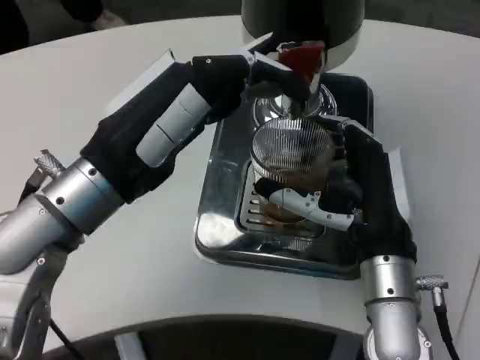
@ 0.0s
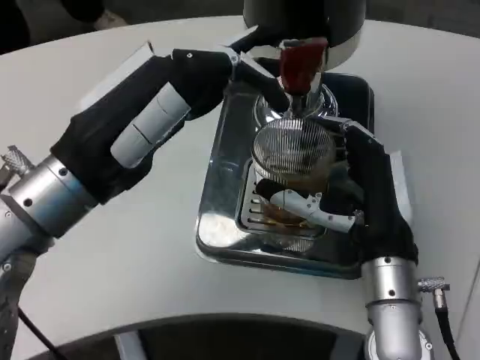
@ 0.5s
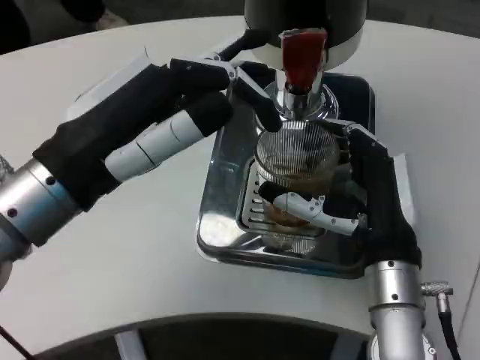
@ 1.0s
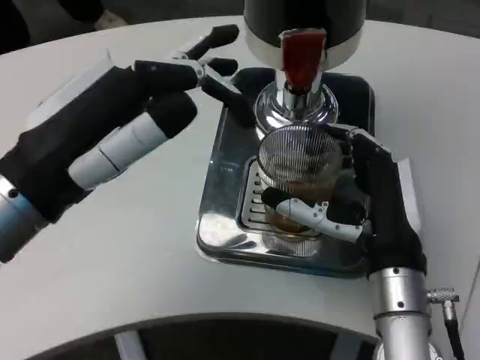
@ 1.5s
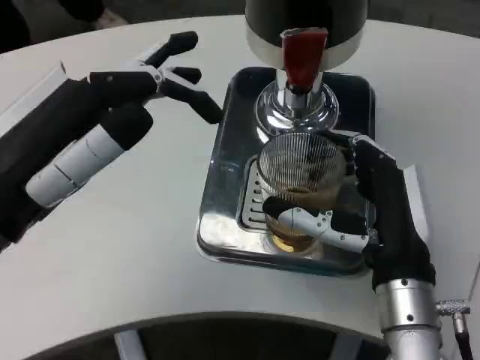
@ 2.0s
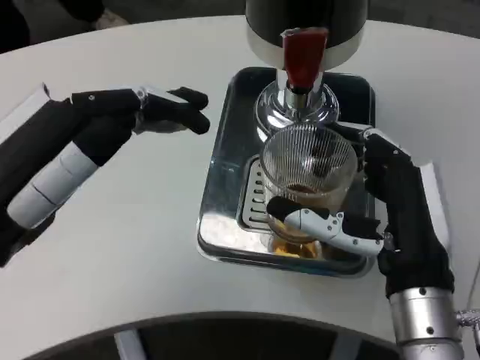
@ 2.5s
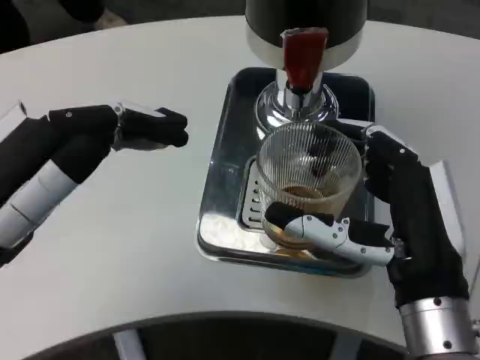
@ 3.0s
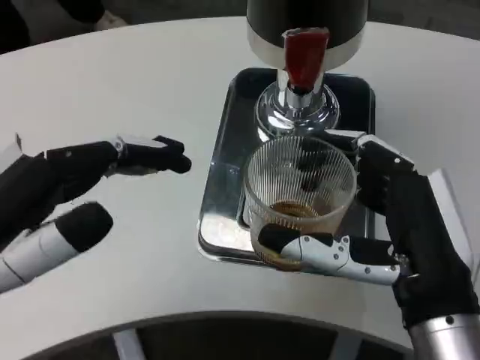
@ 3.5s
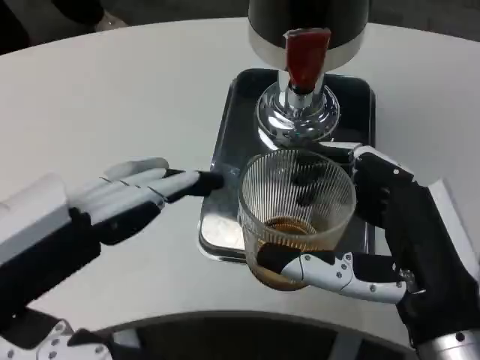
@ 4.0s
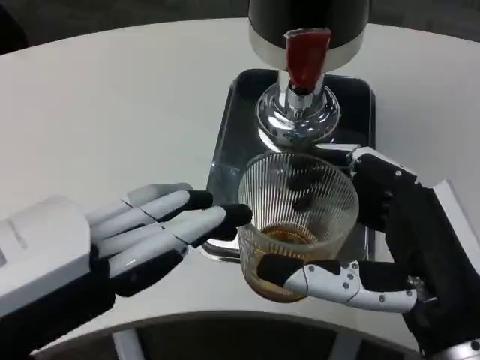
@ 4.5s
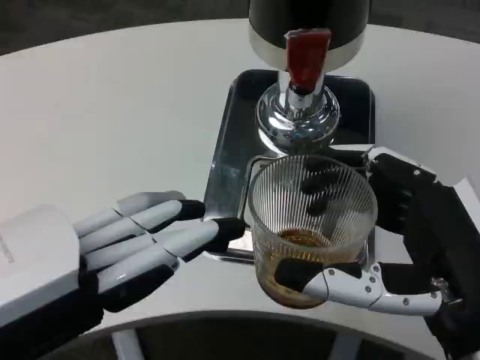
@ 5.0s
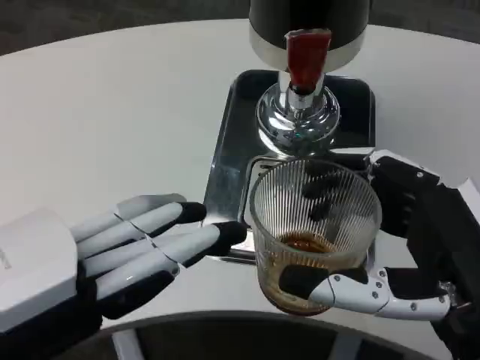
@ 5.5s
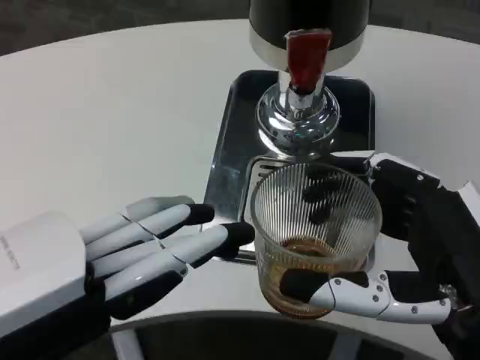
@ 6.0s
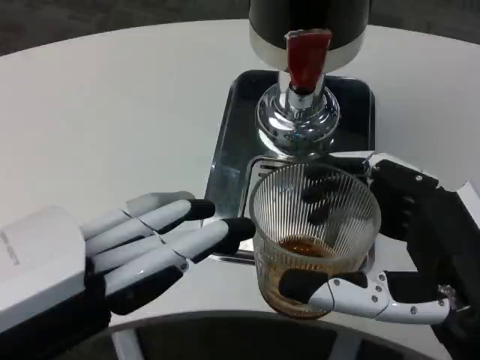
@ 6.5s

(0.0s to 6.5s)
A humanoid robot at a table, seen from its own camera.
Task of the whole recording: Grasp the cup under the faucet to collect the drink, then remove the cup.
0.0s - 2.0s: The left hand shifts some 10 cm backward and to the left.
2.0s - 4.5s: Both hands travel together backward, roughly 10 cm.

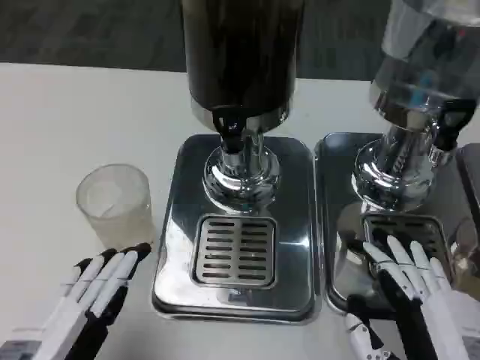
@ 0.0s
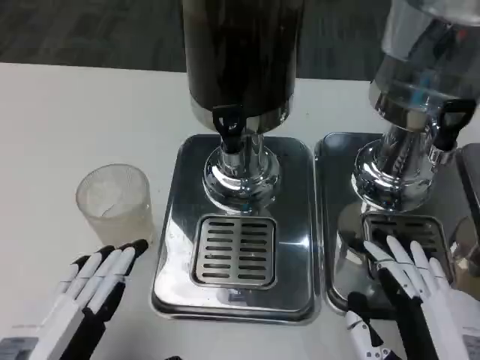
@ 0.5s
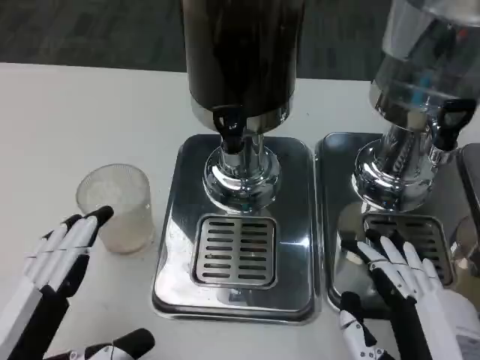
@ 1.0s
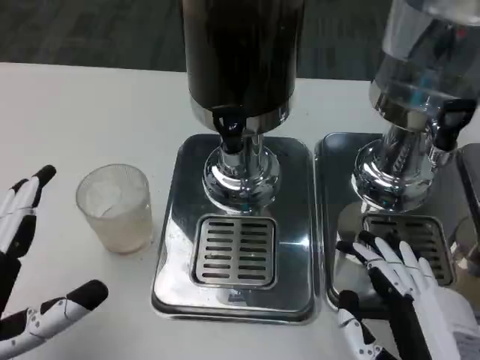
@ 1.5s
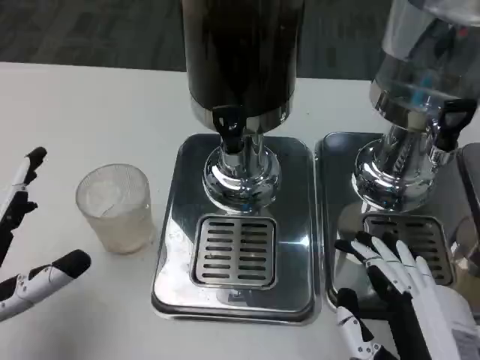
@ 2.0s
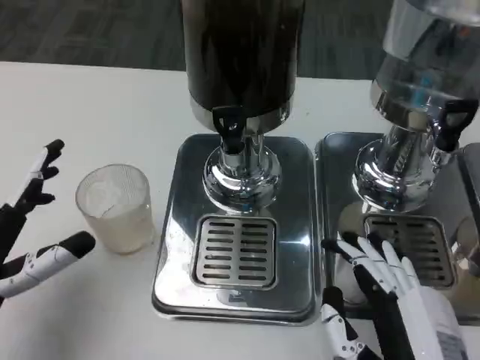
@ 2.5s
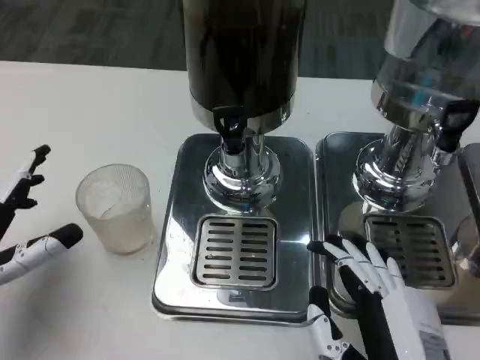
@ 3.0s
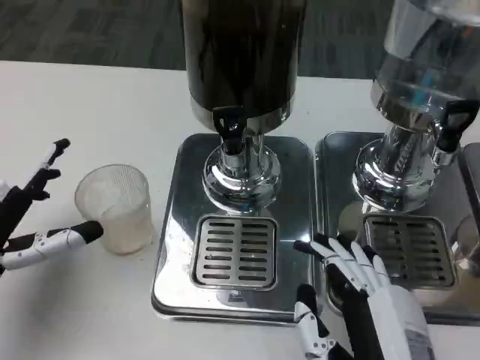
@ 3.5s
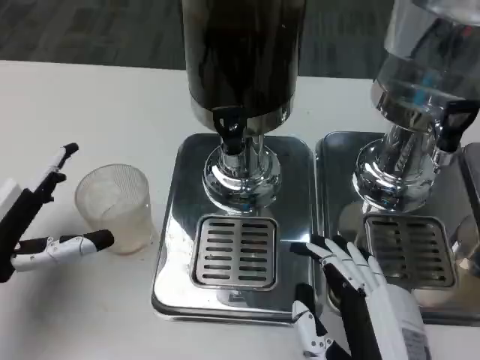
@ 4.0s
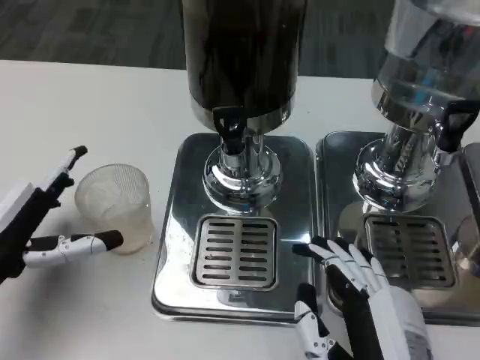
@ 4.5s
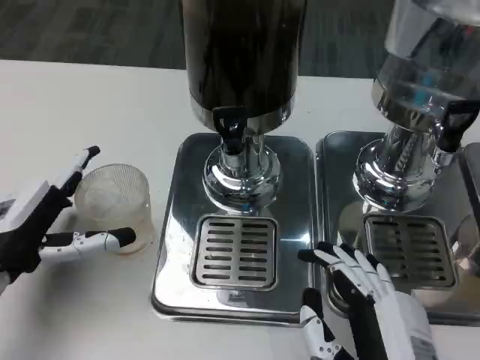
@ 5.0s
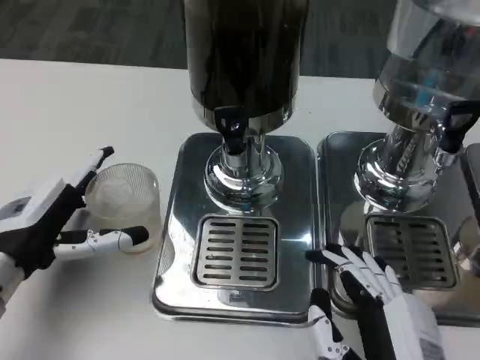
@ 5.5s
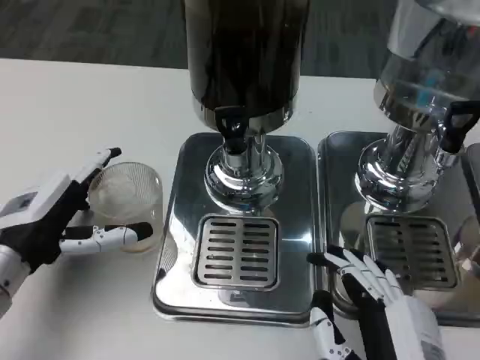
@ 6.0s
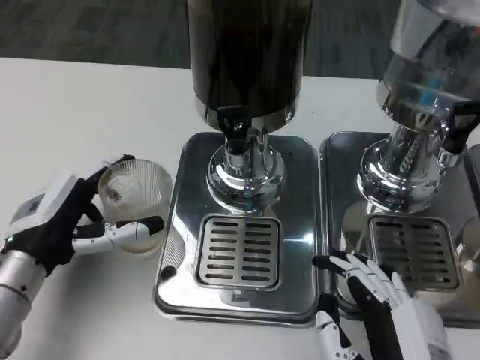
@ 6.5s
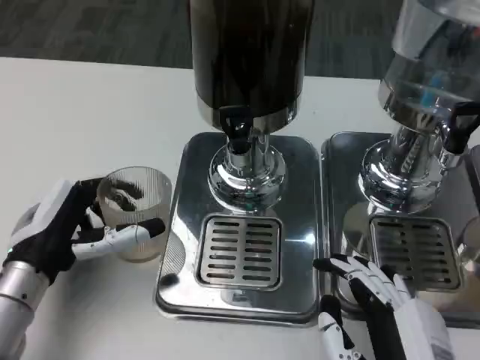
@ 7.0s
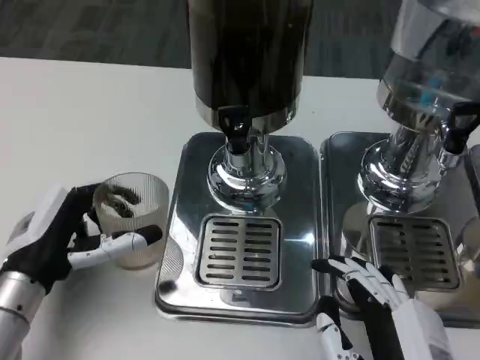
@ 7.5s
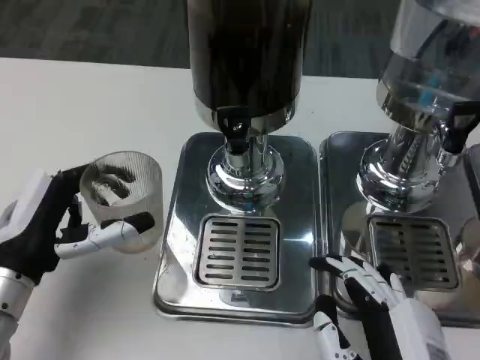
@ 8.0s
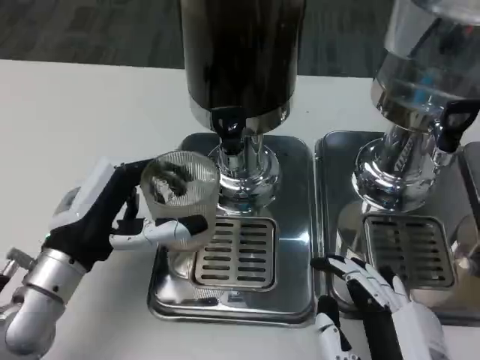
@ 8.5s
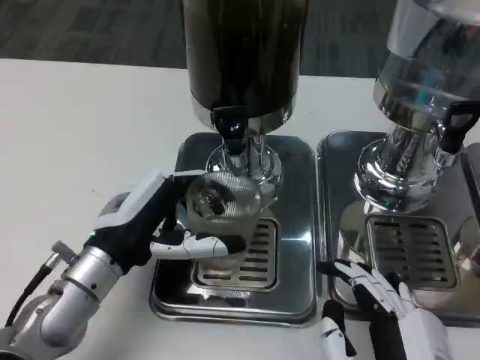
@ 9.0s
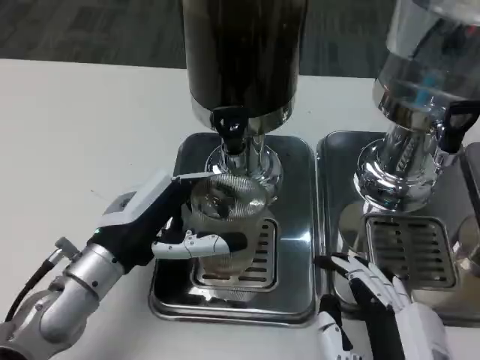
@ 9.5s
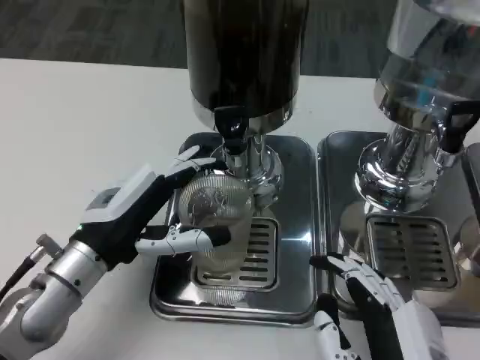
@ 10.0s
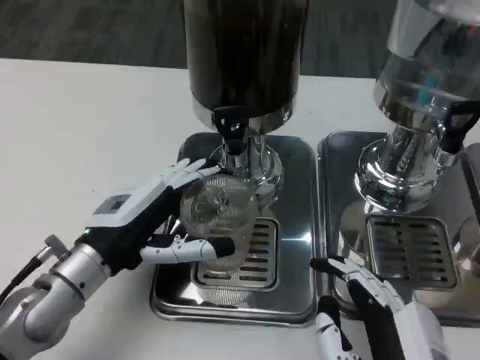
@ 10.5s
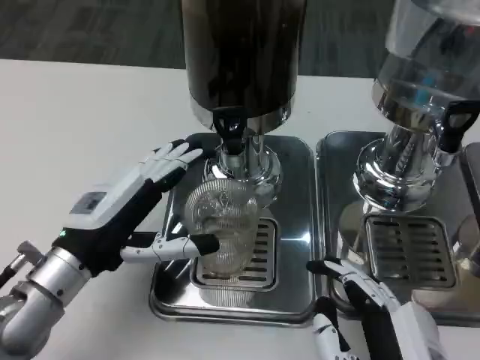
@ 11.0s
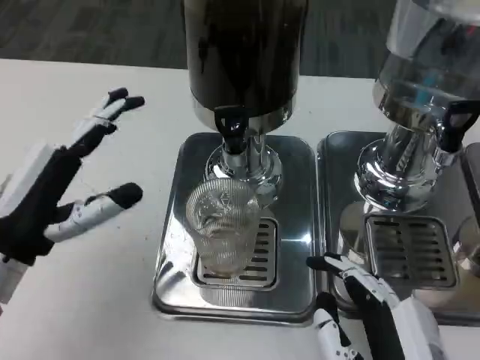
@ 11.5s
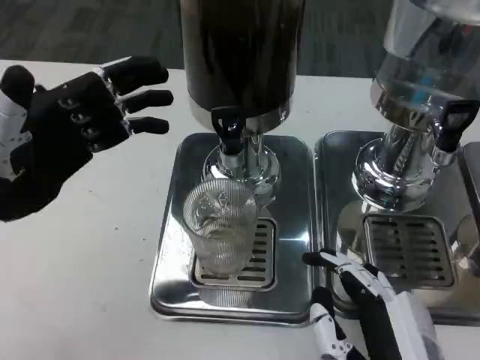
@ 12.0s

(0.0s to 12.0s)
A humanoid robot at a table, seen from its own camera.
Task of the whole recording: Grasp the cup under the faucet to collect the drink, then remove the cup.
0.0s - 2.0s: The left hand shifts roughly 10 cm forward and to the left.
2.0s - 4.0s: The left hand moves forward, about 5 cm.
8.0s - 10.0s: The left hand ends up about 5 cm from where it was.
10.0s - 12.0s: The left hand heads upward and to the left, covering approximately 10 cm.

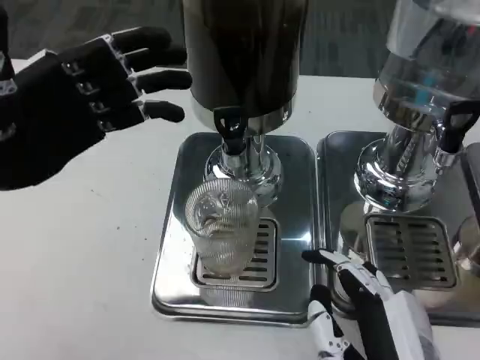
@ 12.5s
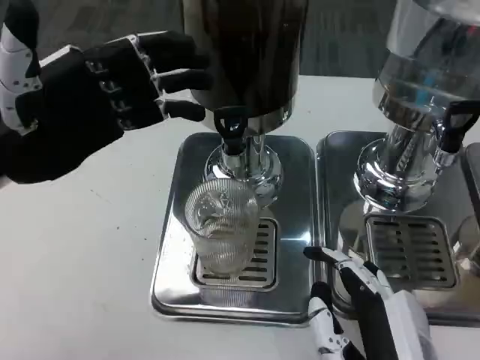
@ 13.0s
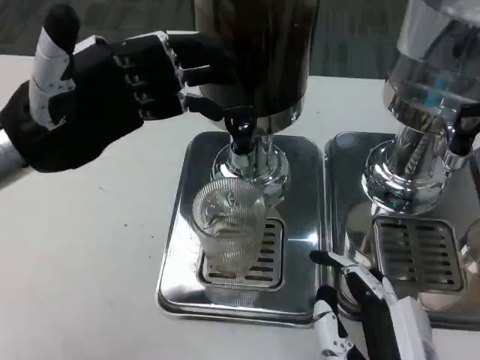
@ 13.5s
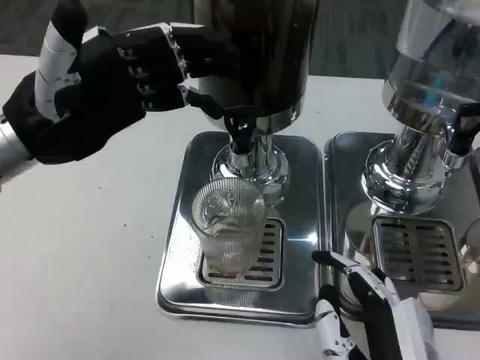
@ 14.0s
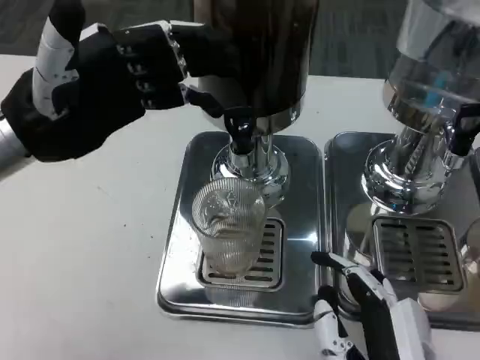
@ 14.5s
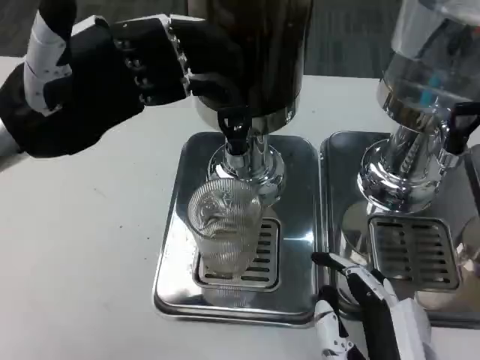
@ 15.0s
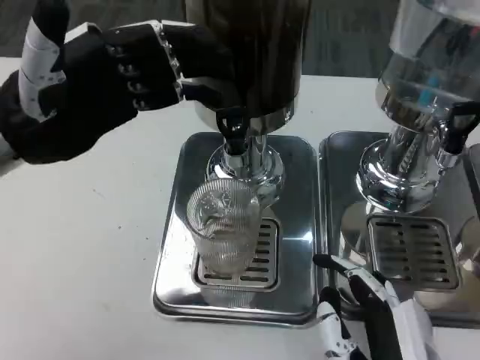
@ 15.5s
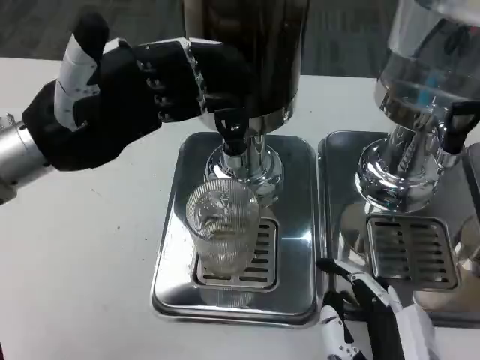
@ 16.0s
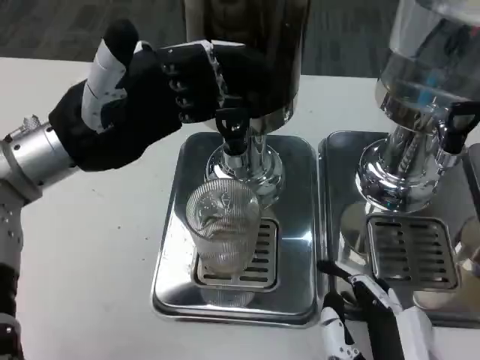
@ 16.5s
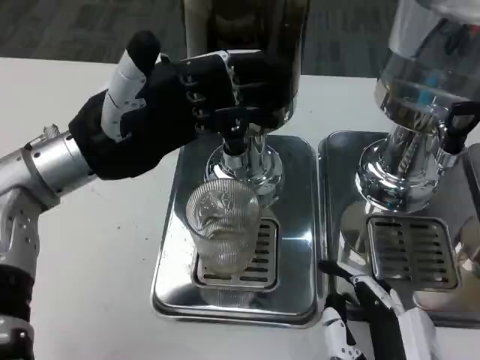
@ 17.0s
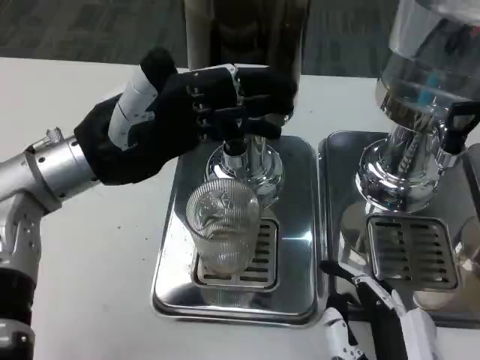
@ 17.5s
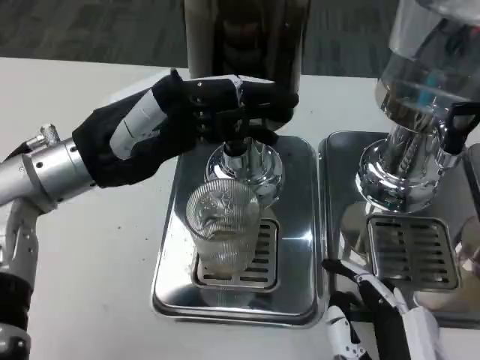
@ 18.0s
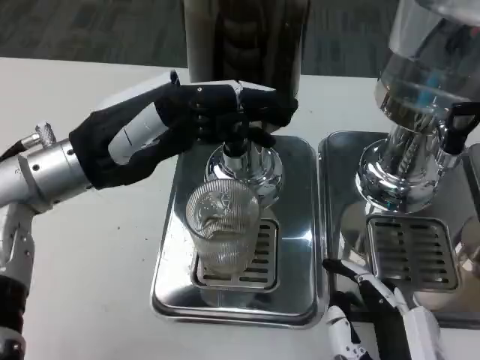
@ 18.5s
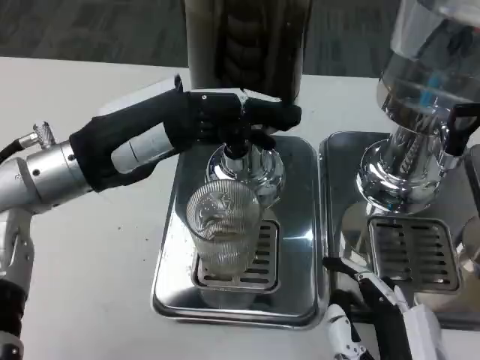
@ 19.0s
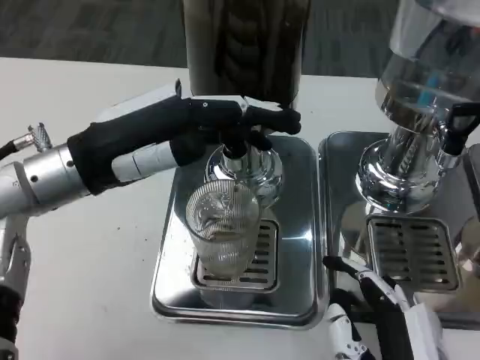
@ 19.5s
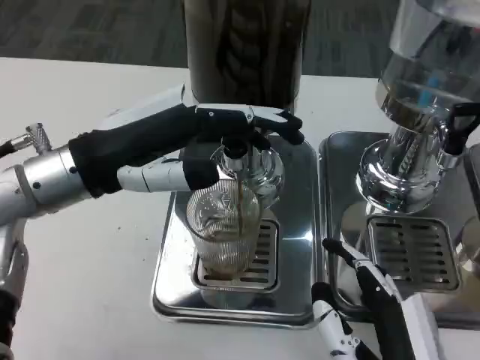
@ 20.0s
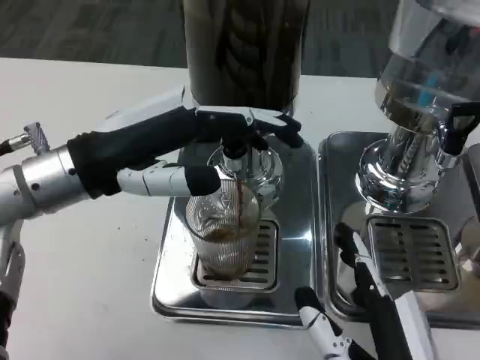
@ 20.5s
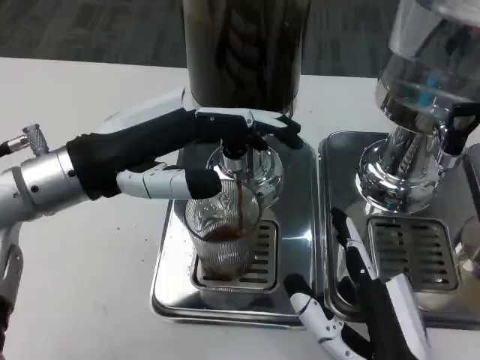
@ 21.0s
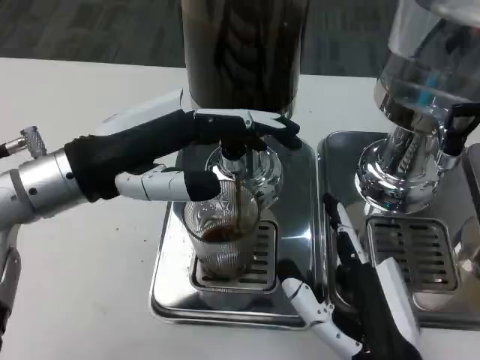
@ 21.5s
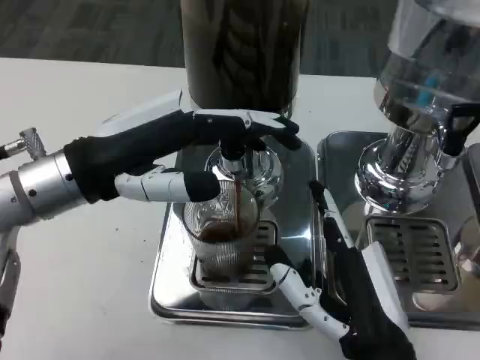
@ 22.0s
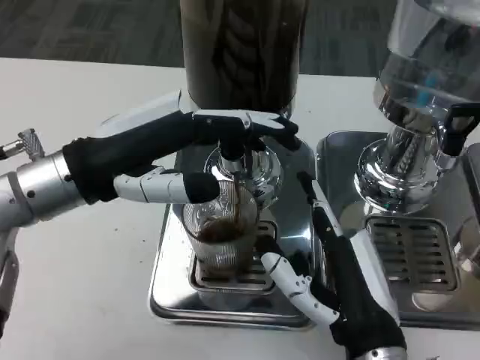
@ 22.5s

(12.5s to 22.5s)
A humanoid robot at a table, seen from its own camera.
Task of the whole recording: Grasp the cup under the faucet to collect the drink, then remove the cup.
16.5s - 18.5s: The hands move only a little.
20.5s - 22.5s: The right hand is displaced forward by approximately 5 cm.
